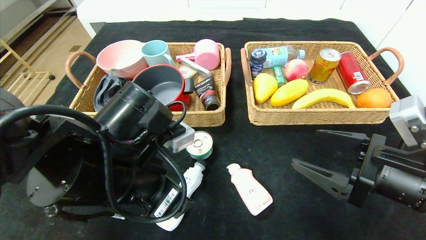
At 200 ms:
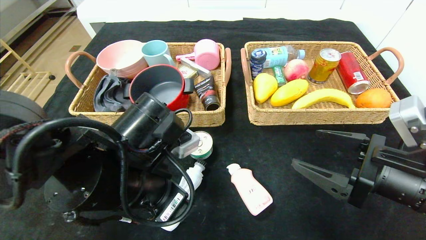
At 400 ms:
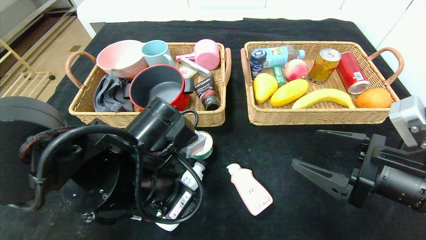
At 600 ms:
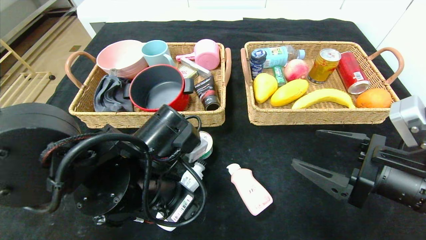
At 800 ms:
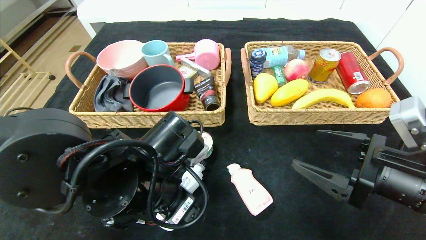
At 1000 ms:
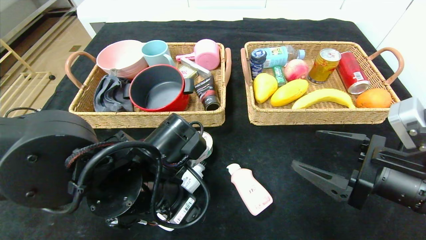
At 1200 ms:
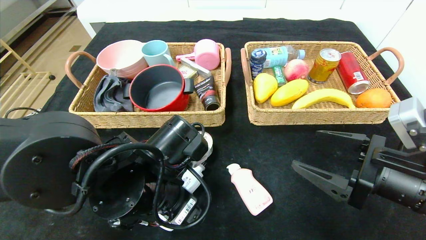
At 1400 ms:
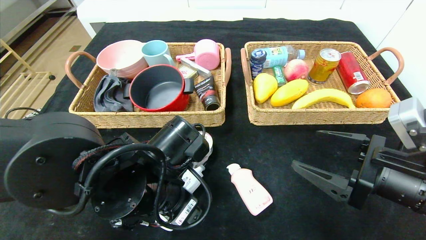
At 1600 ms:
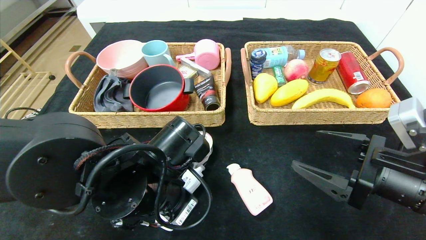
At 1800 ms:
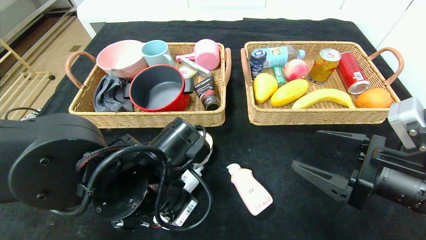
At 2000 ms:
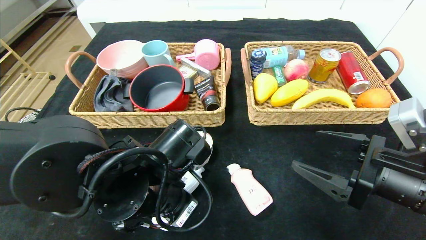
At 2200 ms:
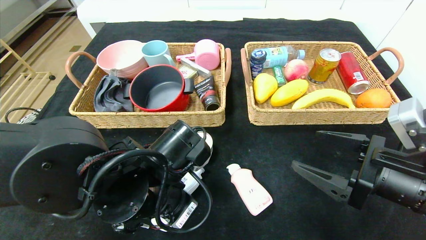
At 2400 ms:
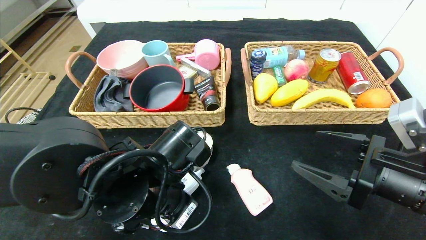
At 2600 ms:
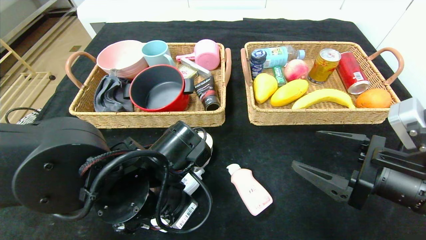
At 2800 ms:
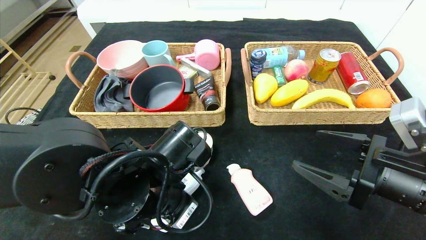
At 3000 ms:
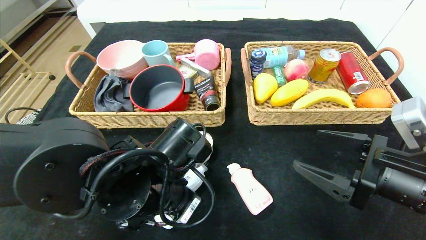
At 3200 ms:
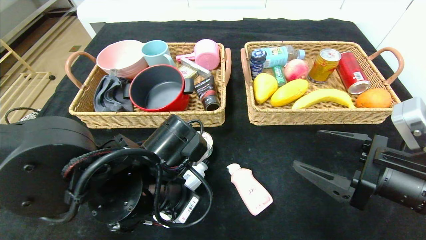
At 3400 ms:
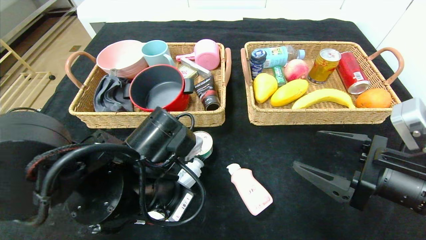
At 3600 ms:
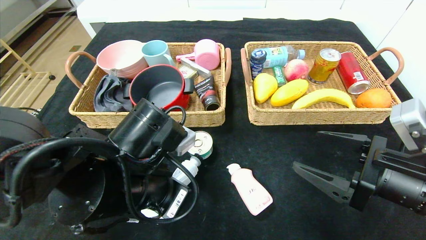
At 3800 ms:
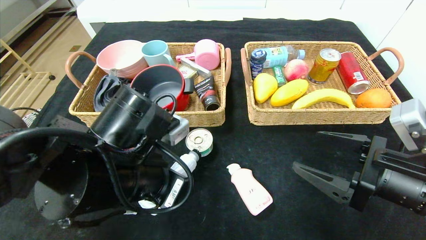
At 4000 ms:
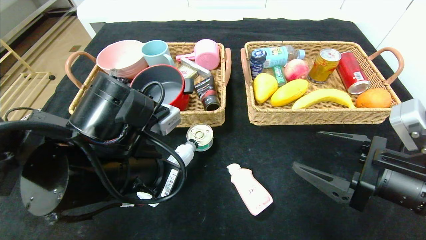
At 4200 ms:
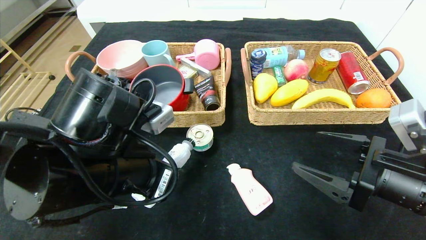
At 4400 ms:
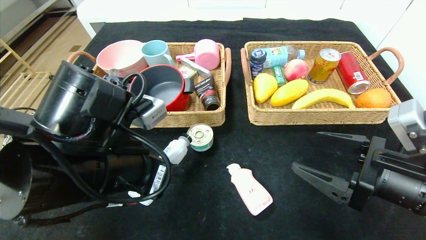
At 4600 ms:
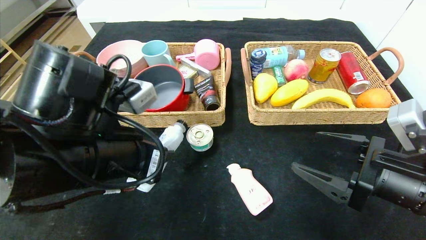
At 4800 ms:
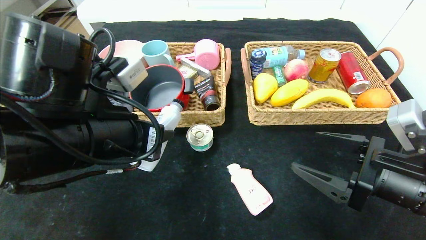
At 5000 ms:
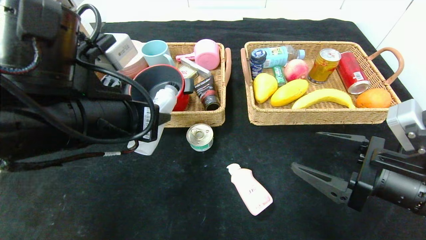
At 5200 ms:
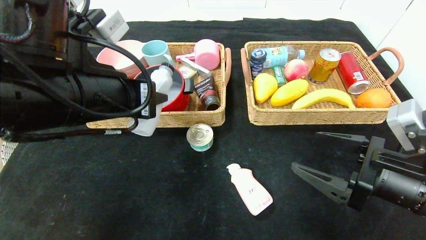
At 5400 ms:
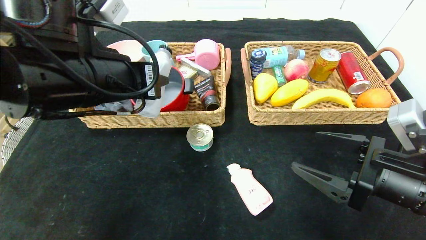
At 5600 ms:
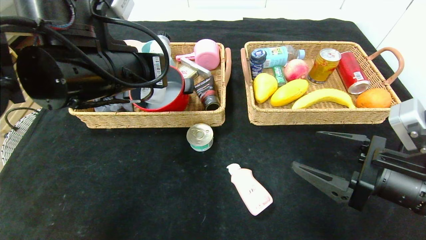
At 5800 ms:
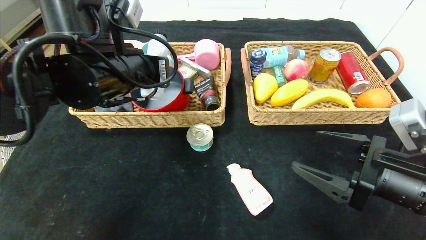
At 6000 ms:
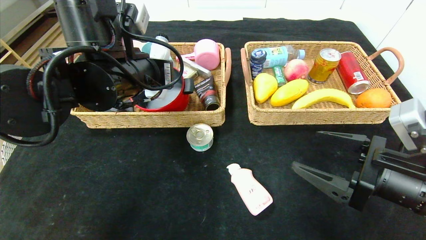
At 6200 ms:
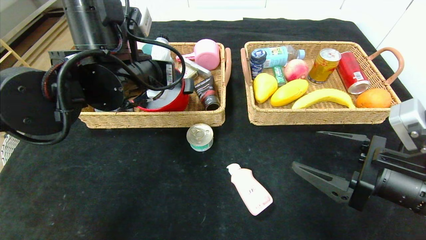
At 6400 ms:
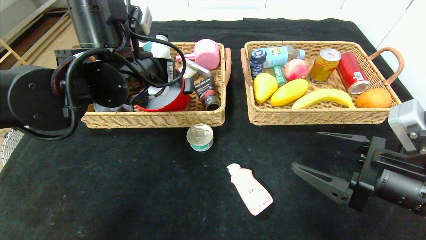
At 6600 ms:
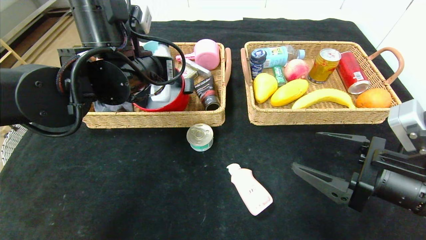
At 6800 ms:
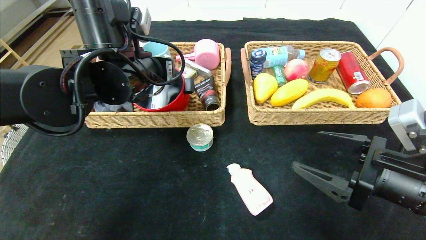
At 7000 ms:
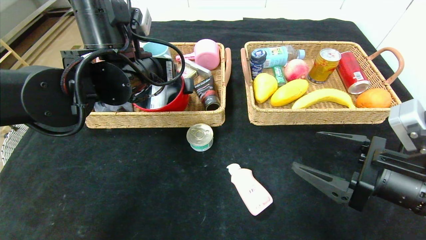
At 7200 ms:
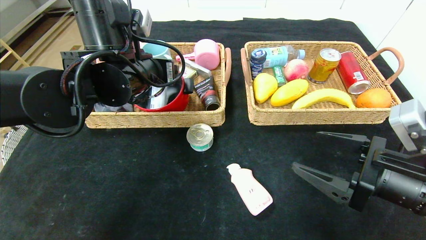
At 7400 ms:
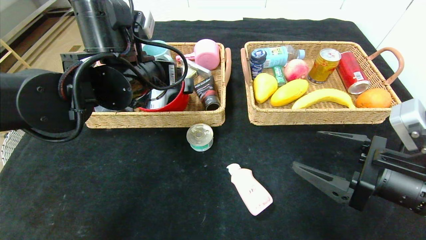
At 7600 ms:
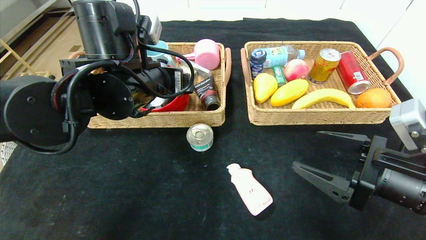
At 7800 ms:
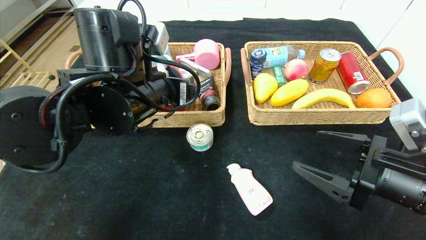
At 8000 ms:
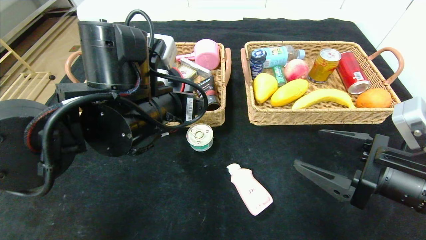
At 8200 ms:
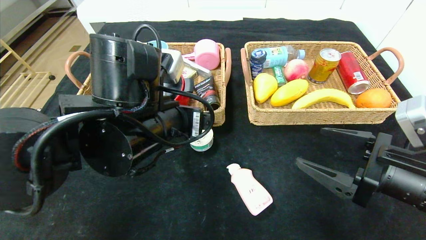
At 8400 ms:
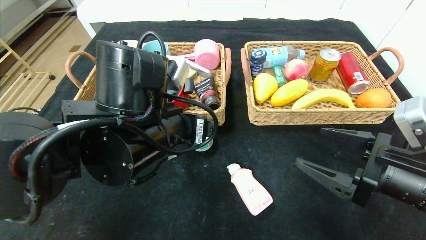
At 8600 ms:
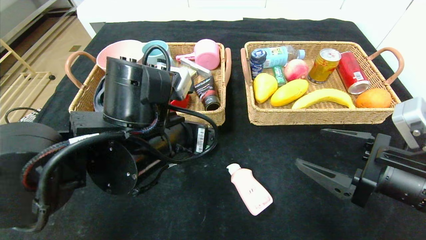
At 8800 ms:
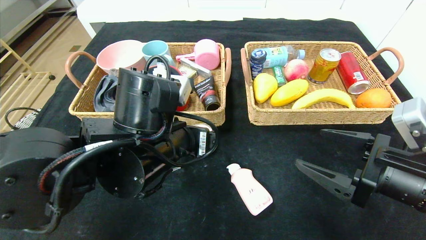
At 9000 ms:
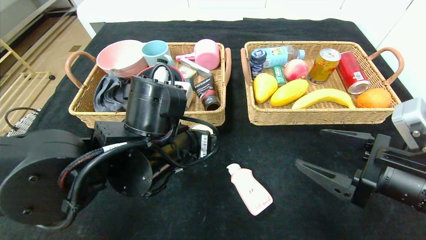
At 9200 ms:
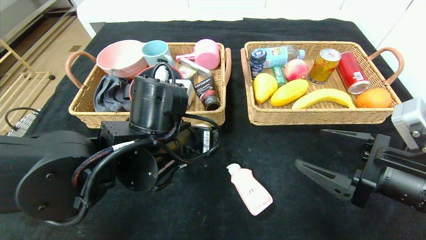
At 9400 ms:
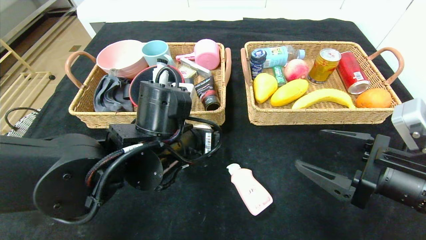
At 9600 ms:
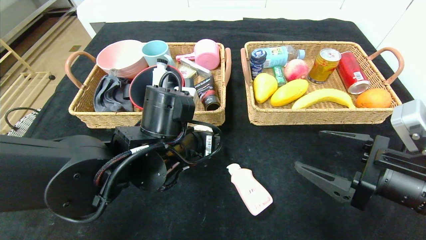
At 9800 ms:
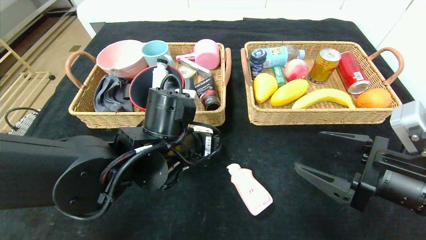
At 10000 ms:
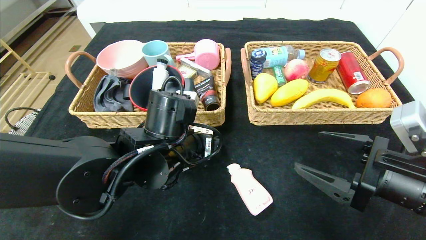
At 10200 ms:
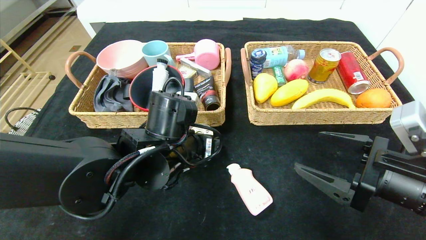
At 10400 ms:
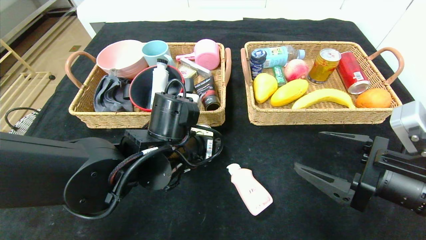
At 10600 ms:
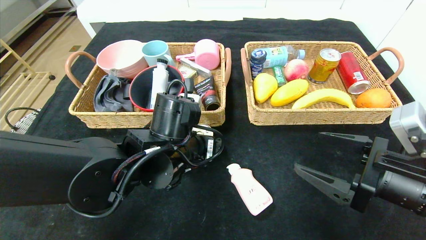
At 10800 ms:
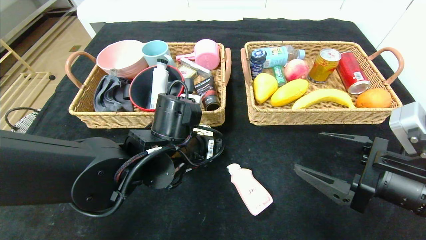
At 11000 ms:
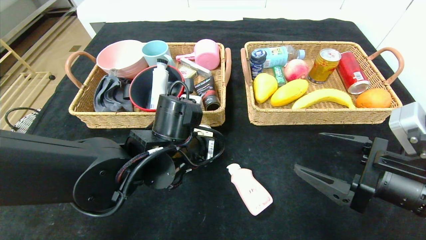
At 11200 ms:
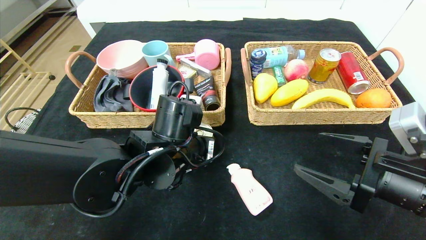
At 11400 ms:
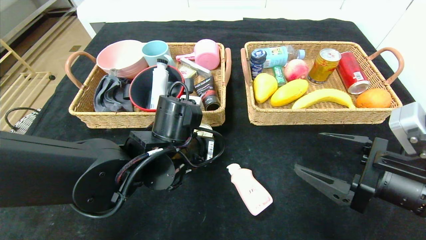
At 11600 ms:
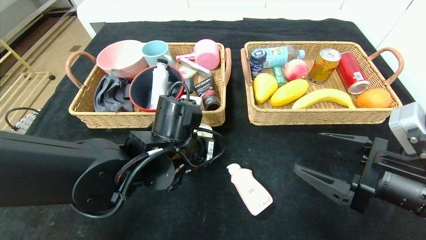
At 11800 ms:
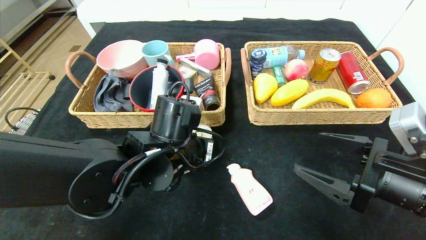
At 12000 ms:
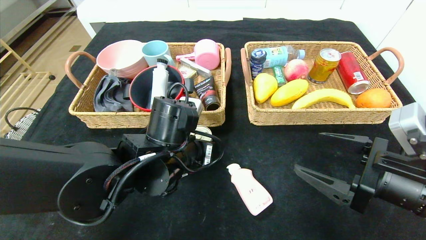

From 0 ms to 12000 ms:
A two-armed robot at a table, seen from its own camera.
Step, from 0 ms to 6600 ms: Grasp the washing liquid and put it in the left basket.
From 0 ms to 1600 ms: The left gripper closes up.
From 1600 ms to 3000 ms: The two grippers keep their place.
From 3000 ms to 4400 ms: The left gripper travels upward by approximately 5 cm.
From 4400 ms to 6000 ms: The left gripper moves forward and upward, some 15 cm.
From 6000 ms to 7600 ms: The left gripper opens up.
From 7600 ms to 9000 ms: The left gripper moves downward and backward, roughly 10 cm.
From 9000 ms to 10400 ms: There are only small adjustments of the grippers.
From 10400 ms to 12000 ms: The left gripper closes.

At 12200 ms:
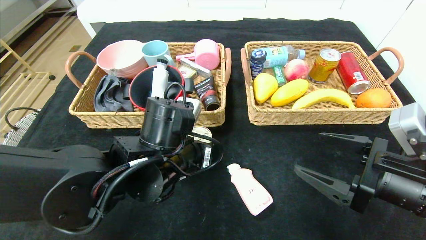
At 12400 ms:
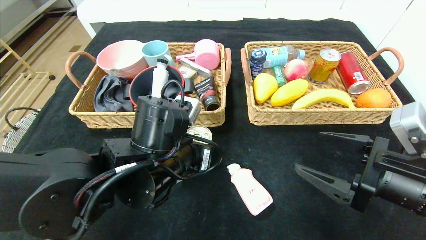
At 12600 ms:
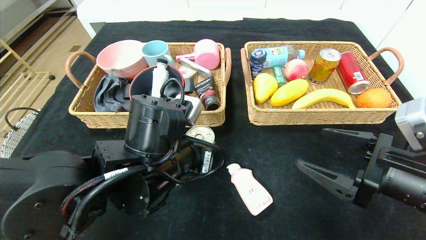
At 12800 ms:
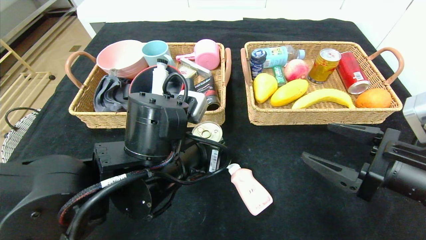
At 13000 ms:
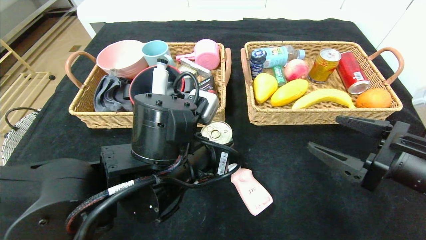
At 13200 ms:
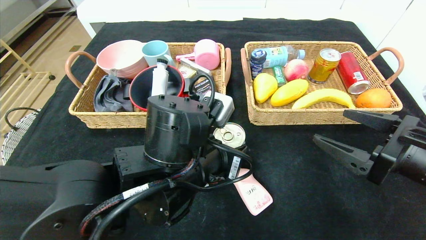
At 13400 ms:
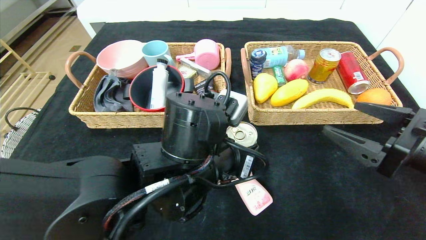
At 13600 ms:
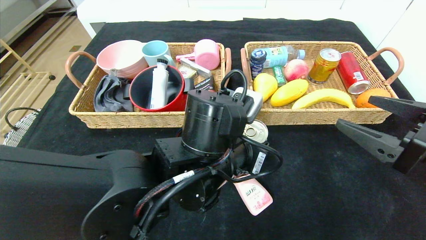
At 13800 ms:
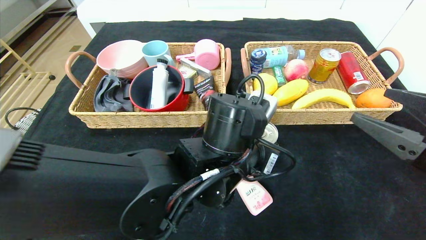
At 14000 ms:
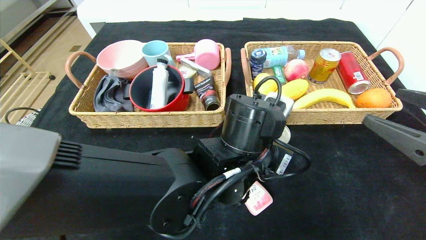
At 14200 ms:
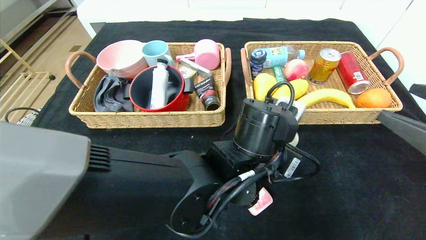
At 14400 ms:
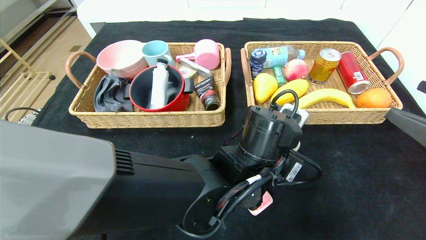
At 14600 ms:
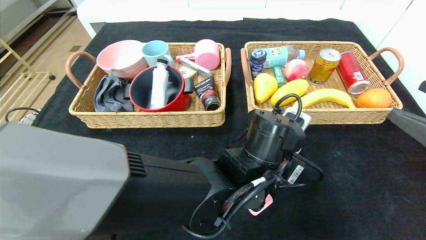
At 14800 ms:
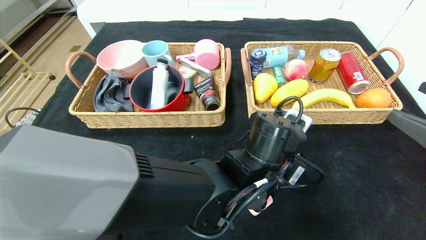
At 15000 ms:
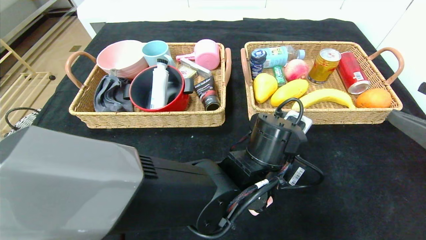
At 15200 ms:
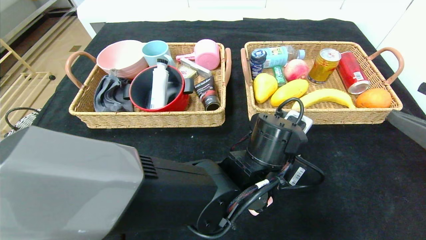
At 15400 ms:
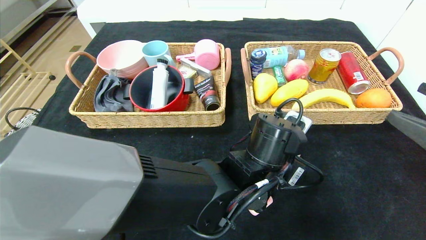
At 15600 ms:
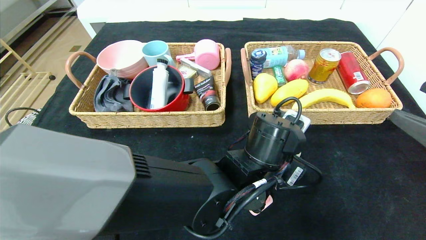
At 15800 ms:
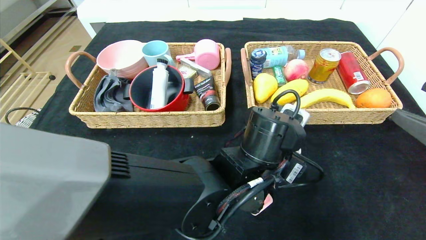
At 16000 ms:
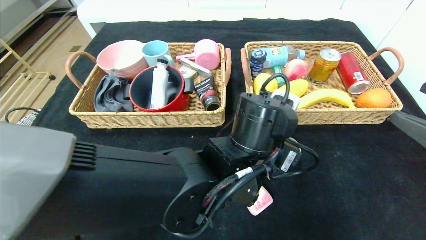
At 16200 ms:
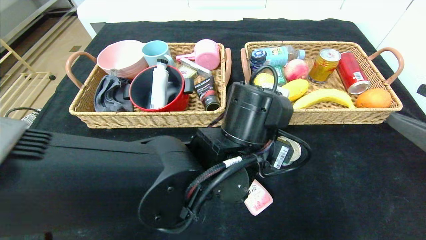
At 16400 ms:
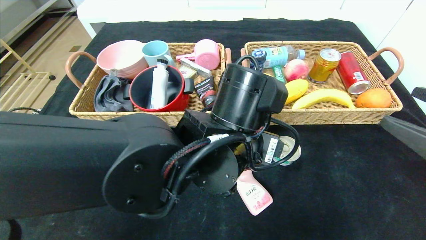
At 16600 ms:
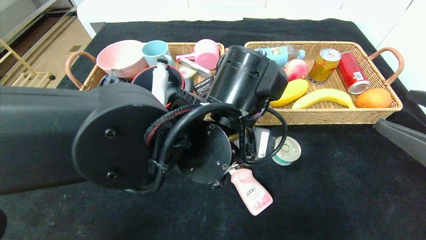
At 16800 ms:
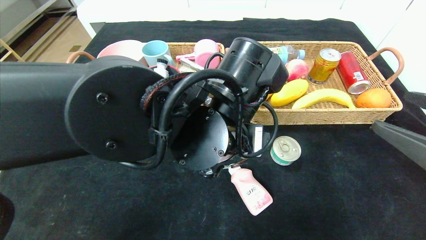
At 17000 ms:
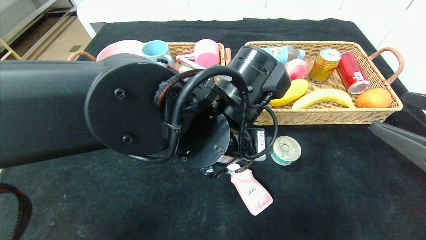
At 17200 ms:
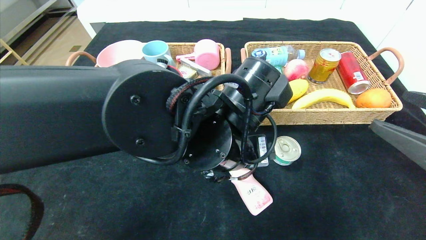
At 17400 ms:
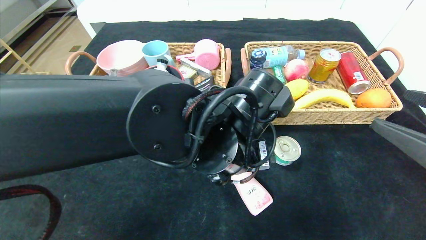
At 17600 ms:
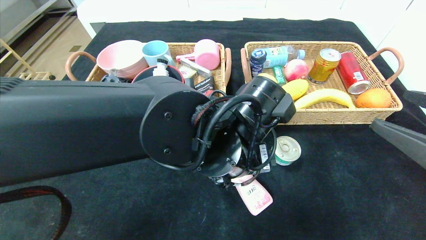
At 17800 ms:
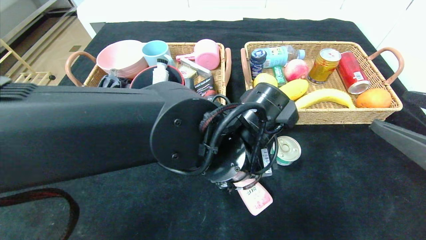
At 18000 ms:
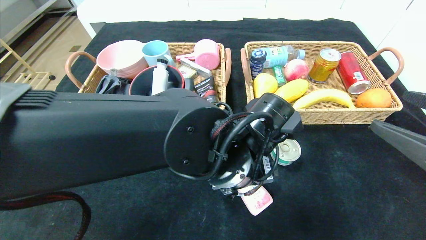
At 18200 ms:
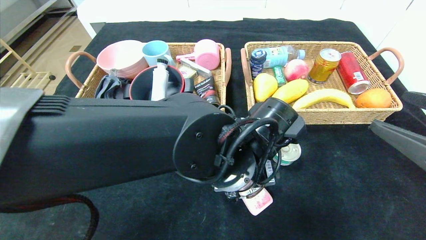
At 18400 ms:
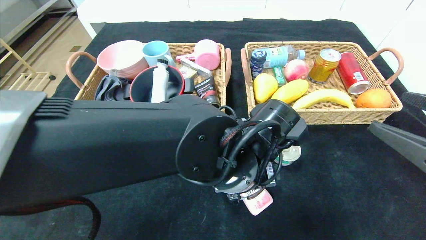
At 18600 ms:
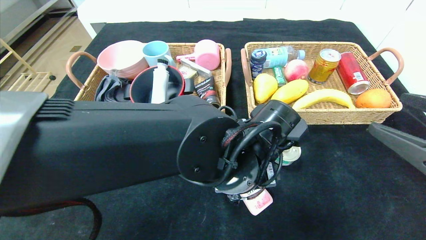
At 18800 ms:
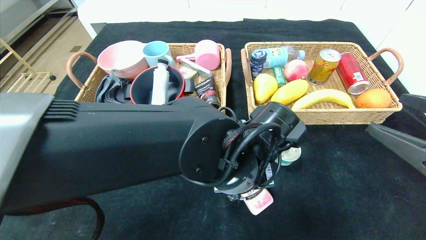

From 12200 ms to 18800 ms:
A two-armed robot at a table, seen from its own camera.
Step, from 12200 ms to 16000 ms: Place the can in the center of the table.
From 12200 ms to 13800 ms: The right gripper moves upward, roughly 5 cm. Meanwhile the left gripper goes some 10 cm to the right.
From 13800 ms to 15400 ms: The left gripper goes approximately 5 cm to the right.
From 15400 ms to 17200 ms: The left gripper moves upward and to the left, some 10 cm.
From 17200 ms to 18800 ms: The left gripper changes place by some 5 cm, and closes.
